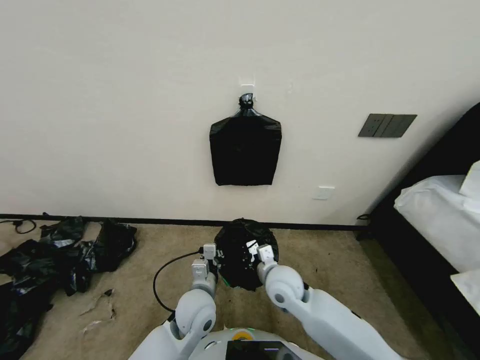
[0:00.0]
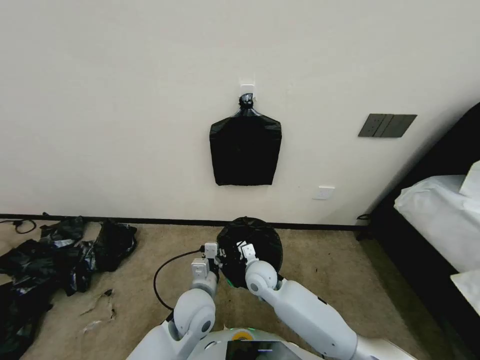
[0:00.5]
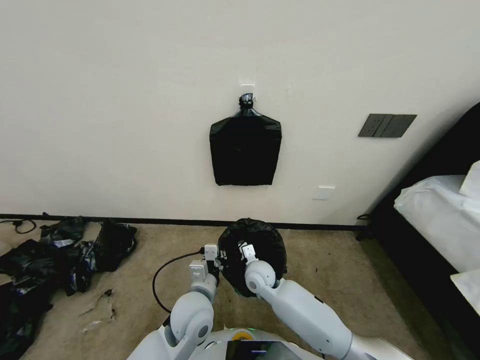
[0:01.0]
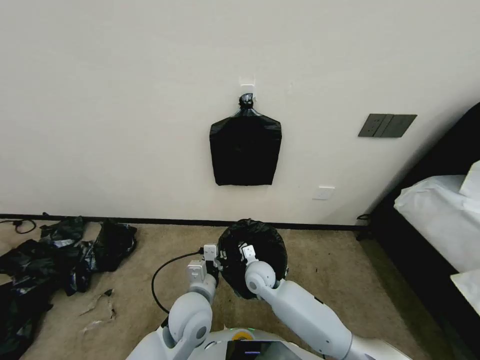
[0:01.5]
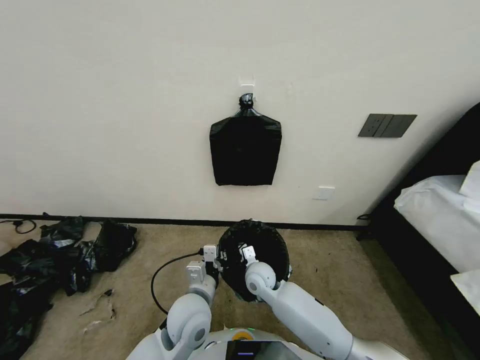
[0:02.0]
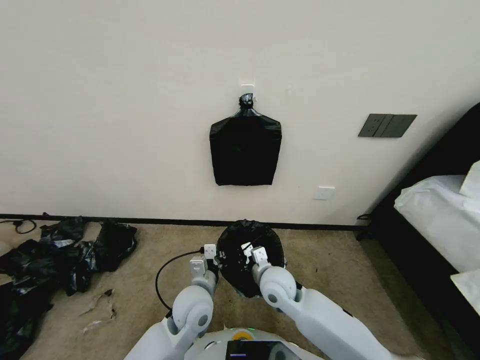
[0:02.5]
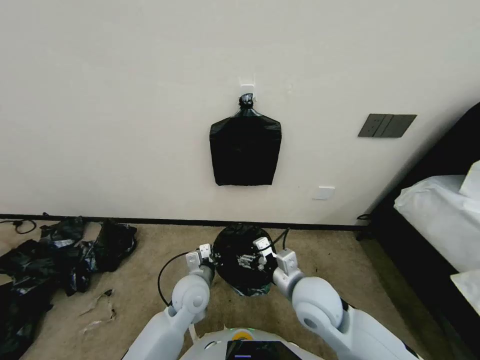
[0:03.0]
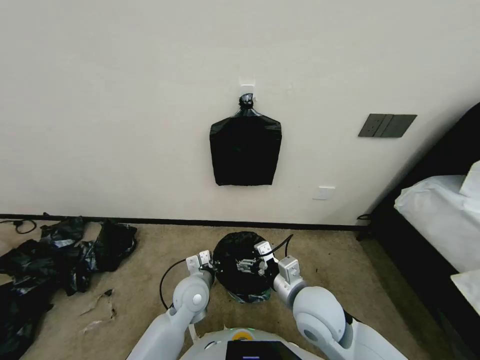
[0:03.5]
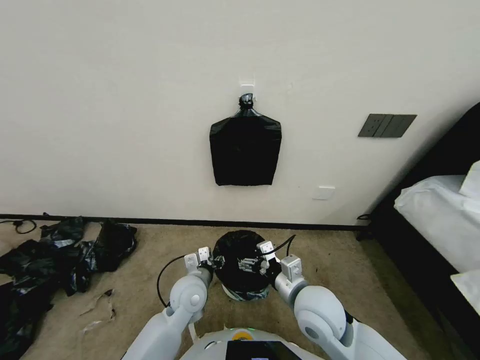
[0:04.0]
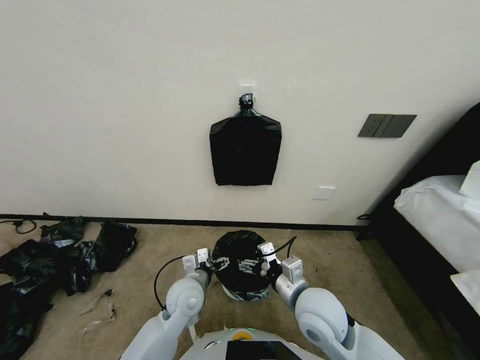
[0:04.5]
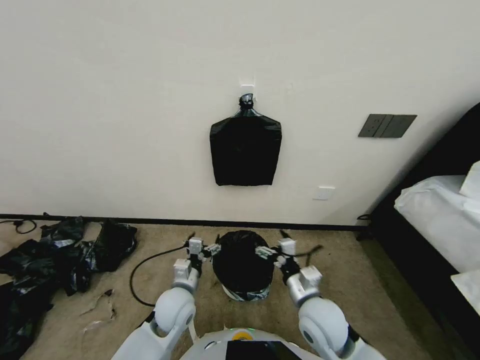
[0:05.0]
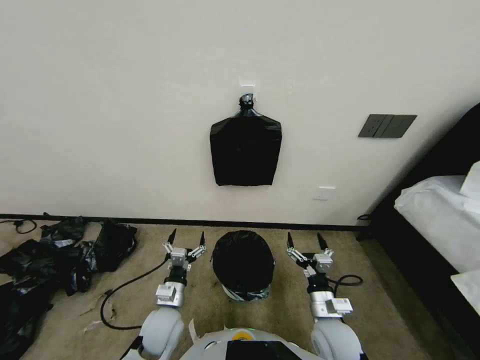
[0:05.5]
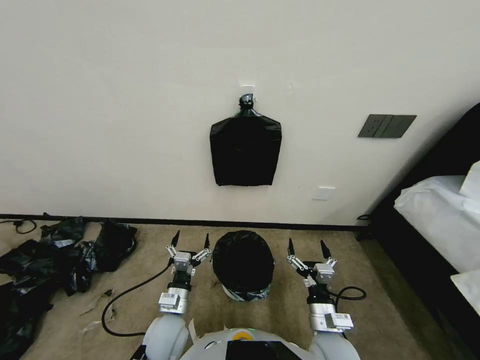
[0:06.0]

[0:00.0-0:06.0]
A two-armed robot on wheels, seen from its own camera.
Task of the whole recording: Place a trash bag onto the trash bin.
0:00.0 to 0:02.0: The right gripper travels downward, to the left and forward by roughly 10 cm.
0:02.0 to 0:04.0: The left gripper moves forward, some 5 cm, and opens; the right gripper is displaced upward, backward and to the right by roughly 20 cm, and opens up.
0:04.0 to 0:06.0: The right gripper heads downward, backward and to the right, covering some 15 cm, while the left gripper travels backward by some 10 cm, and opens its fingers.
